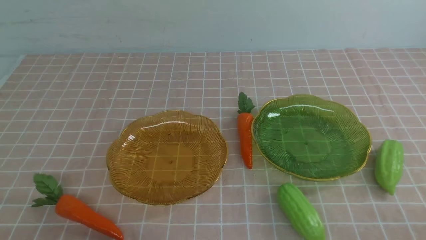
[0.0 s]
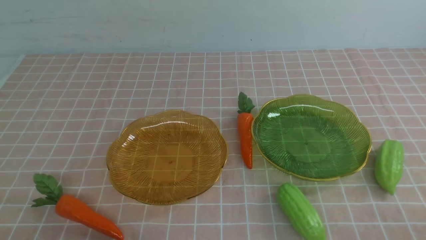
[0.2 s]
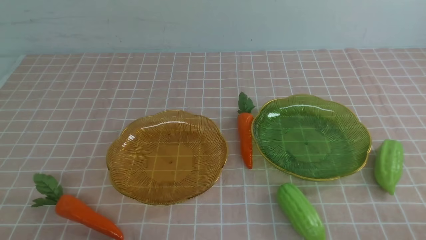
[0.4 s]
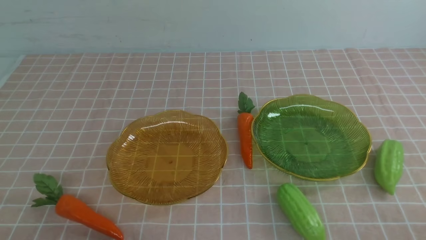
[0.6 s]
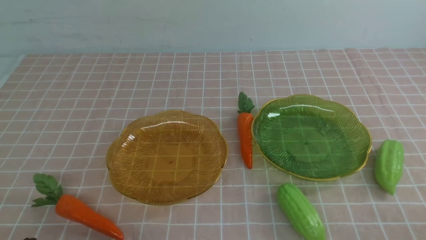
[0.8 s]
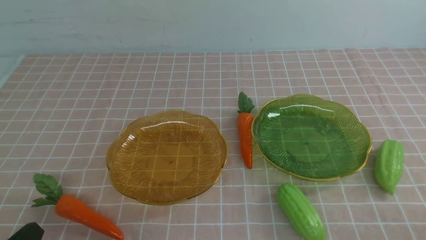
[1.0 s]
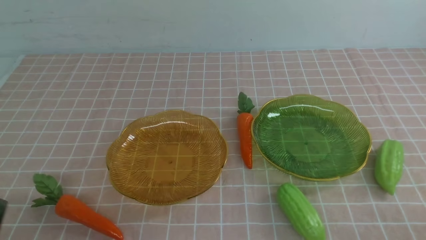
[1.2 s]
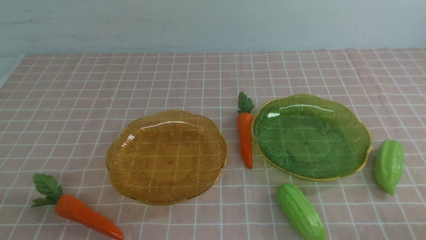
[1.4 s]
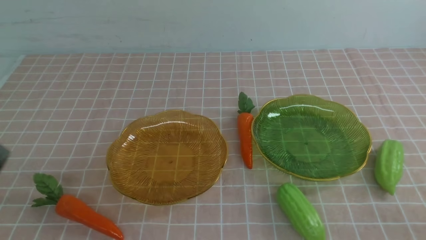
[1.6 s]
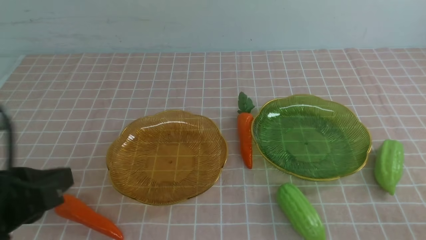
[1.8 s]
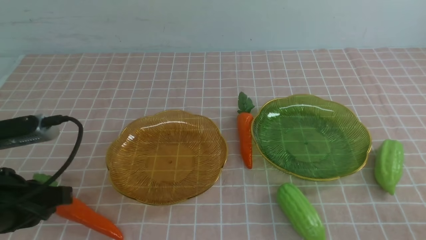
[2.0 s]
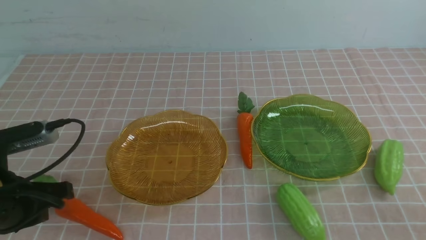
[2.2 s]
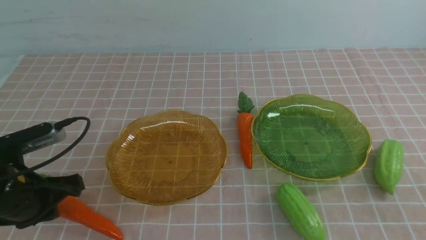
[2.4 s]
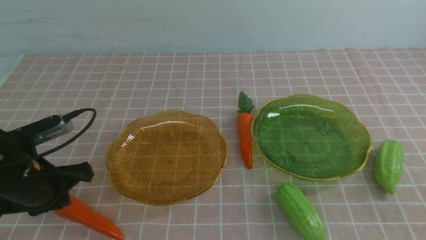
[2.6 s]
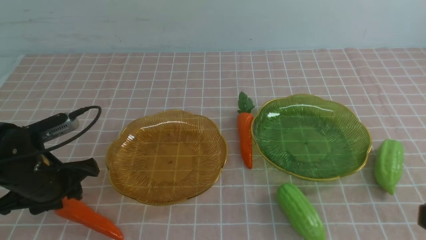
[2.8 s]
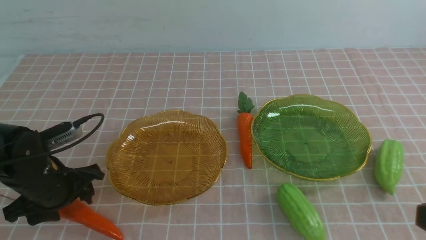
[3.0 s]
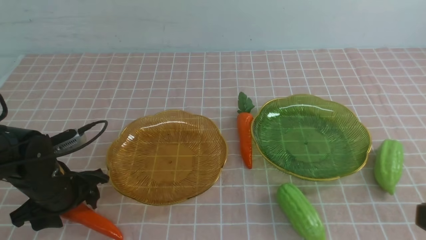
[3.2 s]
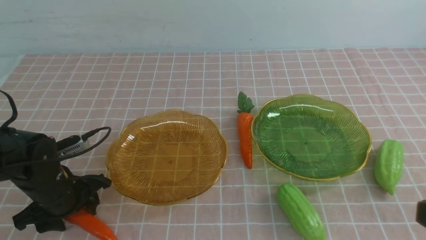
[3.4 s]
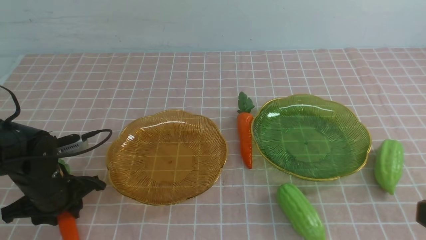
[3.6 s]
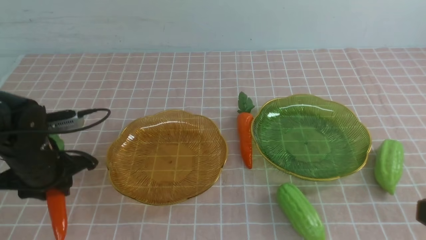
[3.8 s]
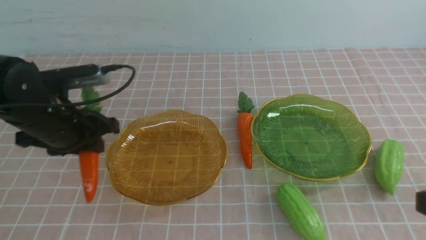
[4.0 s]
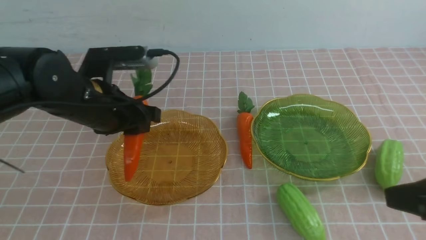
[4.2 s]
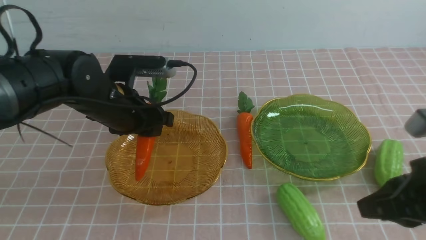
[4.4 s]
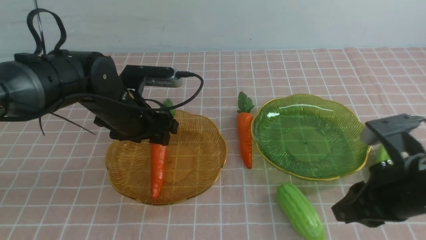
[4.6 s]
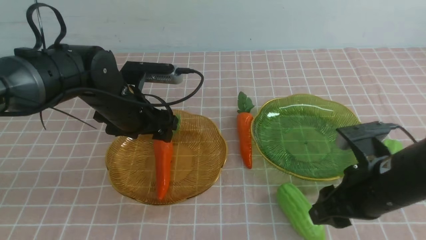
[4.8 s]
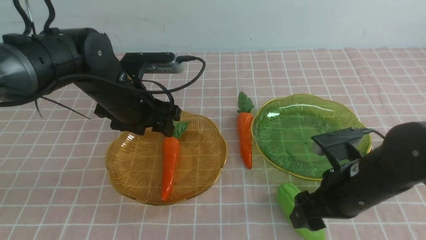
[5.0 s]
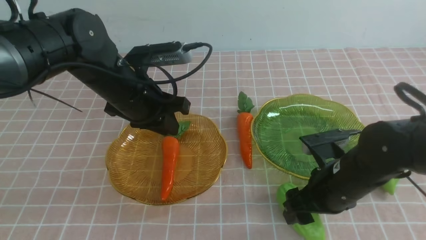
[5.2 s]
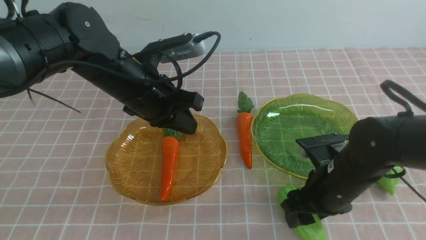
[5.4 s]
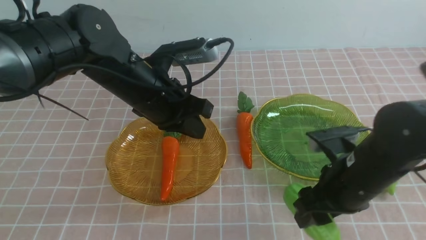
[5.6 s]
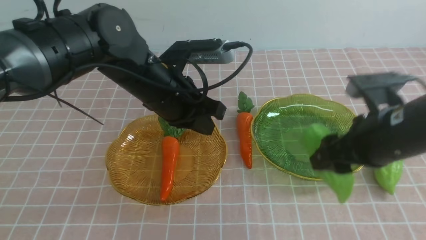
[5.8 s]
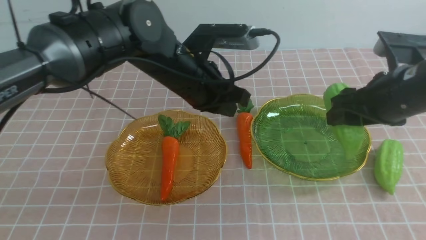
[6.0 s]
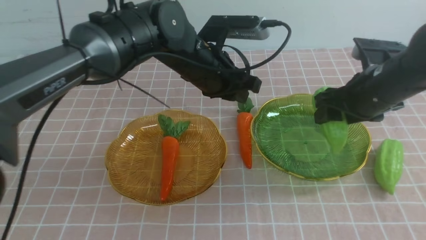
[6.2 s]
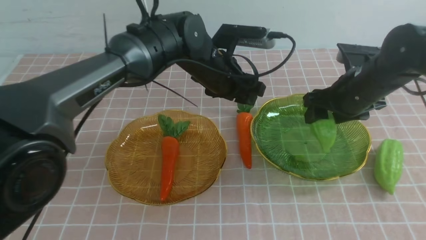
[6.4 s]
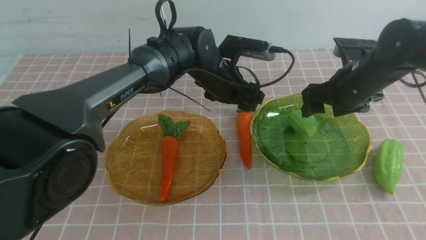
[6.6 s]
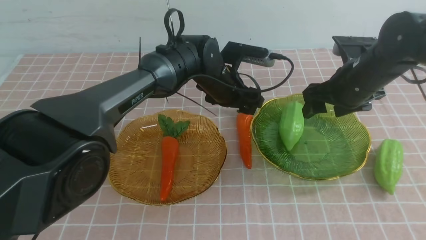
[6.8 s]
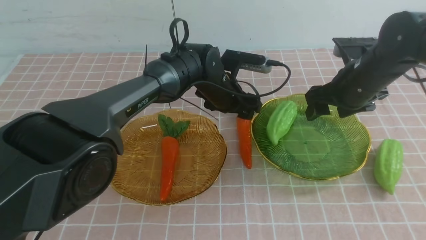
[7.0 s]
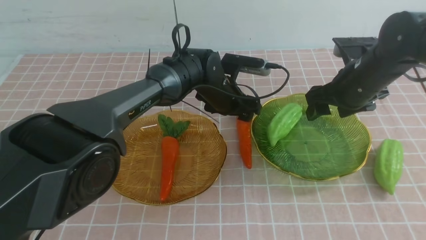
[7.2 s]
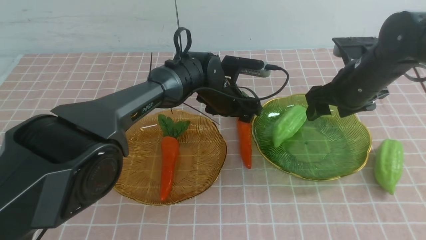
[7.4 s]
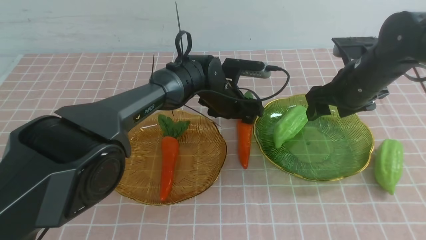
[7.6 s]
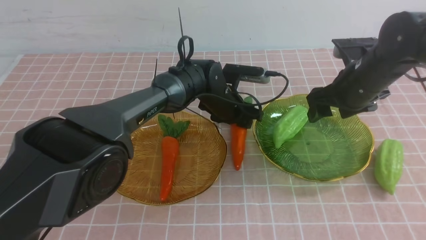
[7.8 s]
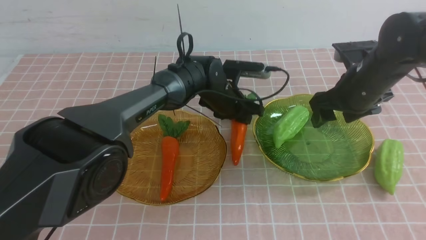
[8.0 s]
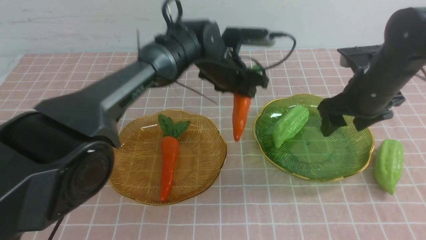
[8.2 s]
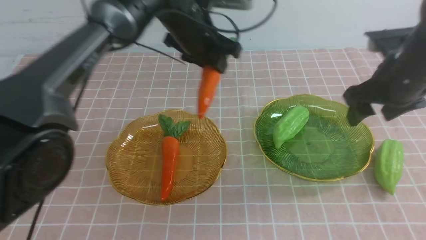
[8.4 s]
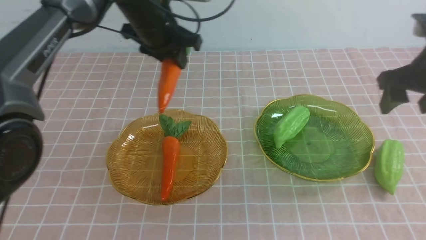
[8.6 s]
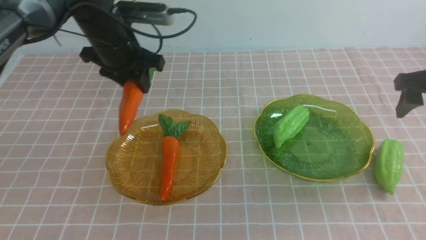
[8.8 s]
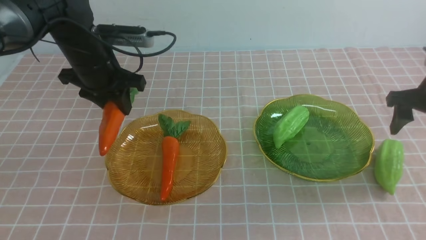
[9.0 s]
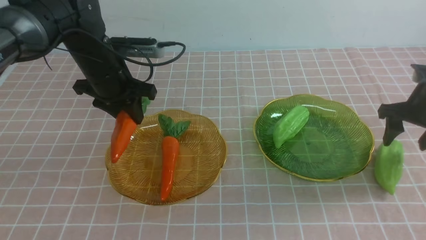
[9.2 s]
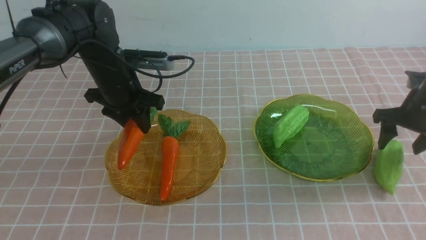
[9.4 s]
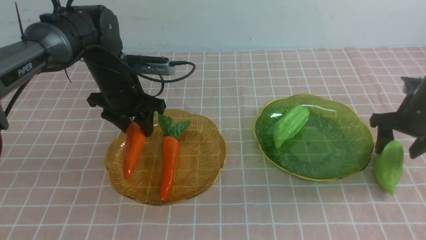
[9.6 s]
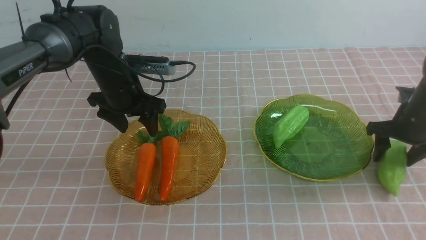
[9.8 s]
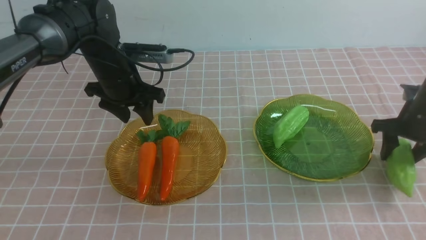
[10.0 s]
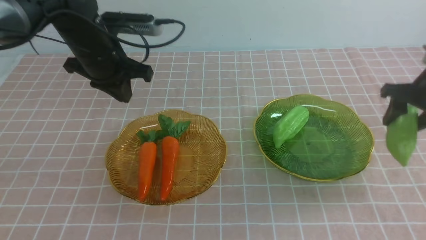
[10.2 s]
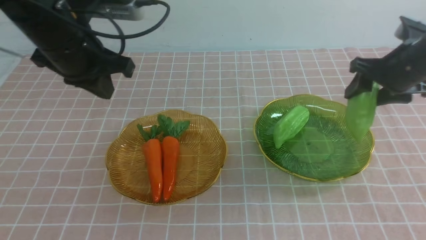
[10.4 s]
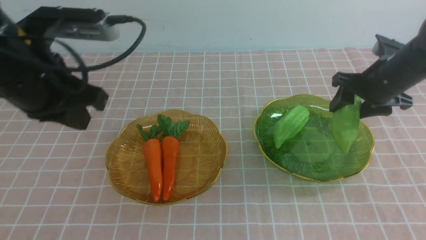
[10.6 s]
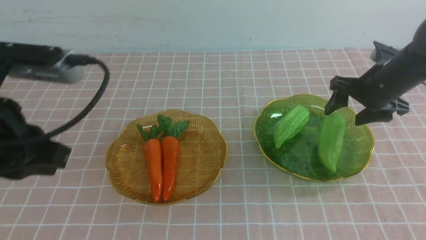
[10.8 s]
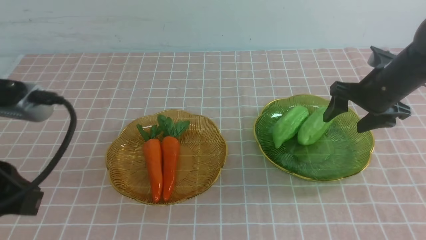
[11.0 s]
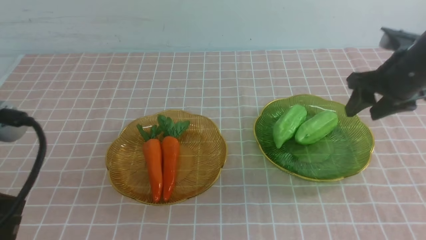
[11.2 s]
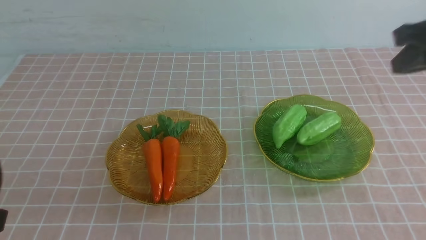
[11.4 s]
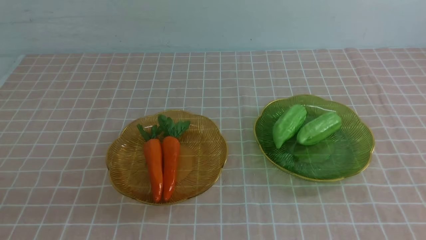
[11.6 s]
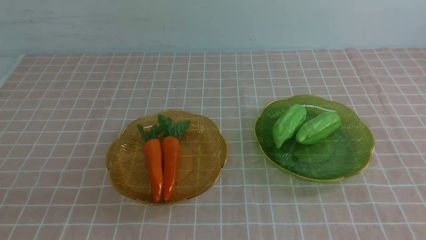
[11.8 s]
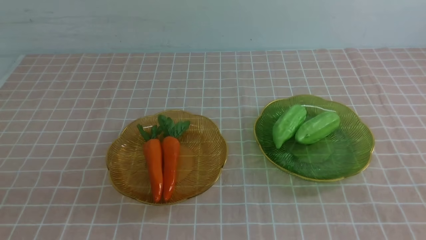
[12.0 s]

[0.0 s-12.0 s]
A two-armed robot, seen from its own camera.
Step, 0.0 to 4.6 s: use the left arm to grab a carrot and put it into the left plate.
Step, 4.8 to 6.6 s: use the right arm to grab a chayote and put it into the right plate.
Step, 7.0 to 9.6 s: use the left arm to grab a carrot and put it into the left plate.
Step, 9.8 to 10.8 s: use the right arm to grab a chayote and put it into the right plate.
1.6 to 3.0 s: The left gripper is displaced forward and downward by about 25 cm, and opens.
3.0 to 4.4 s: The right gripper heads forward, covering roughly 10 cm. Meanwhile the left gripper travels upward, to the right and forward by approximately 15 cm, and closes its fingers.
4.4 to 6.0 s: The left gripper goes some 10 cm to the right, and closes its fingers. Meanwhile the right gripper heads forward, covering approximately 15 cm, and opens up.
6.0 to 7.6 s: The left gripper travels downward and forward by about 15 cm, and opens its fingers, while the right gripper goes some 5 cm forward.
7.6 to 9.0 s: The left gripper is displaced to the left and upward by about 20 cm, and closes its fingers; the right gripper heads to the right, covering roughly 10 cm.
9.0 to 10.4 s: The left gripper shifts approximately 15 cm backward and upward, and closes its fingers; the right gripper goes about 5 cm to the left, and reaches roughly 10 cm downward, then returns.
10.4 to 12.0 s: The right gripper shifts about 40 cm backward, and closes. The left gripper goes approximately 25 cm backward.

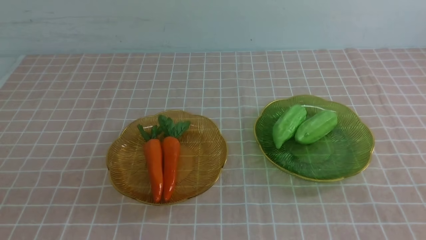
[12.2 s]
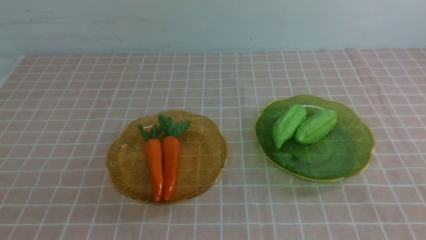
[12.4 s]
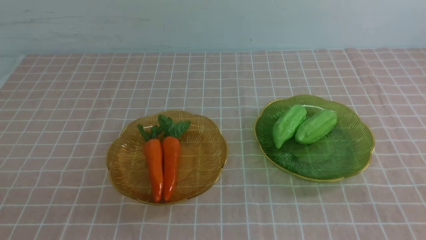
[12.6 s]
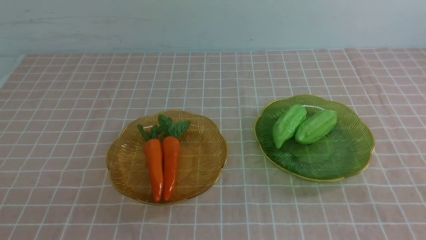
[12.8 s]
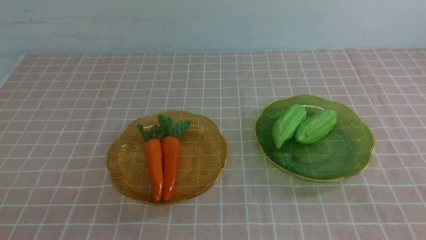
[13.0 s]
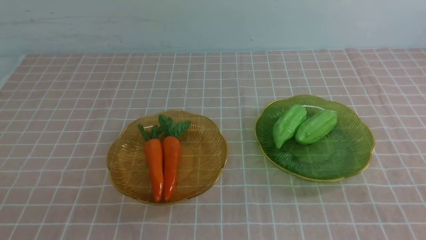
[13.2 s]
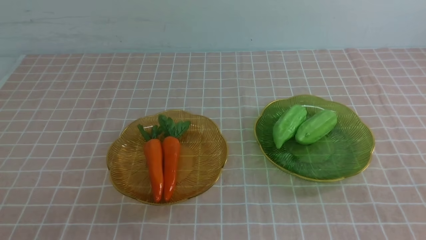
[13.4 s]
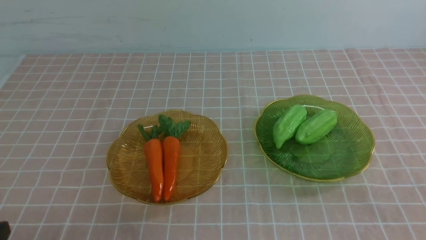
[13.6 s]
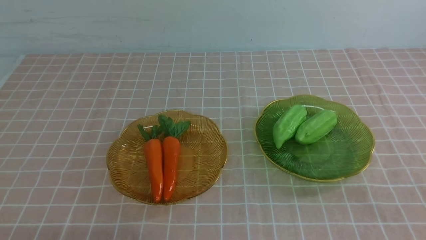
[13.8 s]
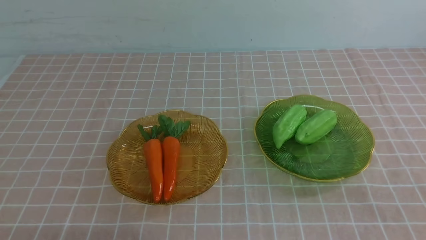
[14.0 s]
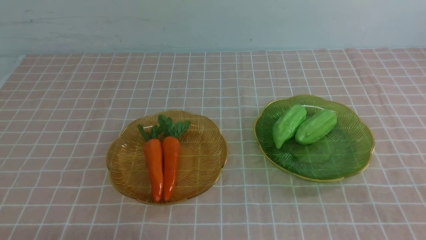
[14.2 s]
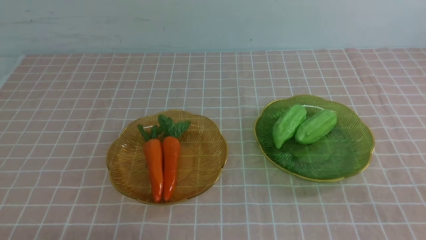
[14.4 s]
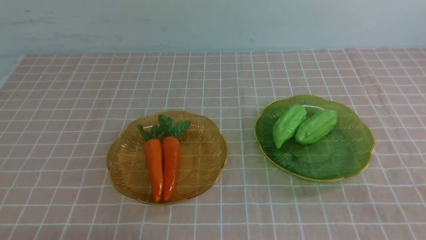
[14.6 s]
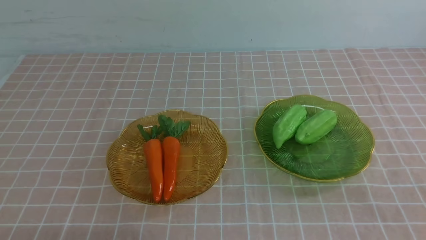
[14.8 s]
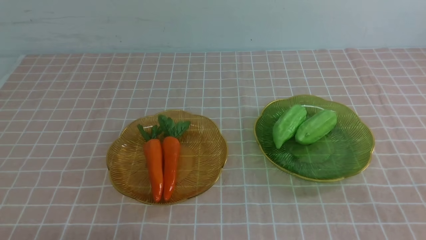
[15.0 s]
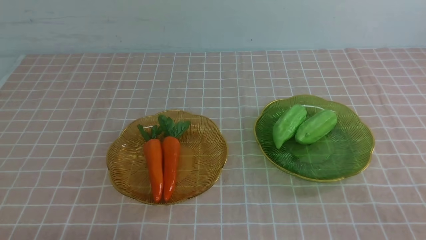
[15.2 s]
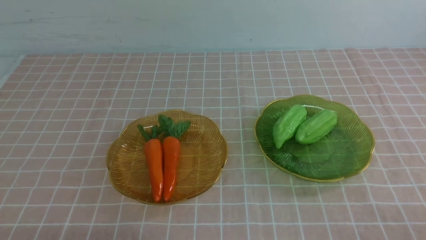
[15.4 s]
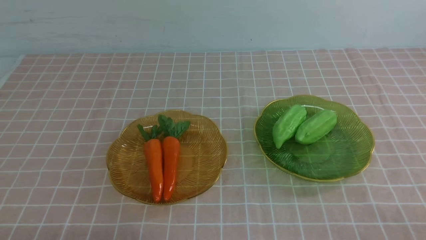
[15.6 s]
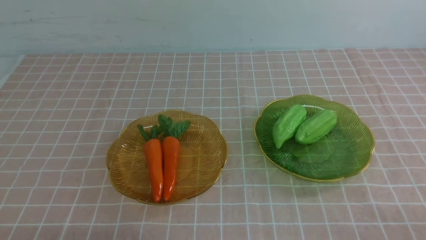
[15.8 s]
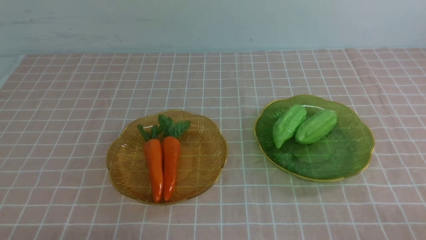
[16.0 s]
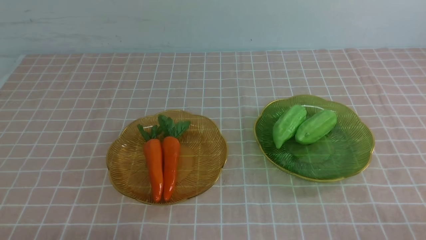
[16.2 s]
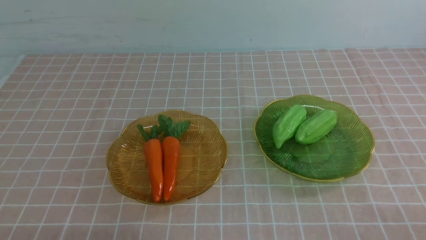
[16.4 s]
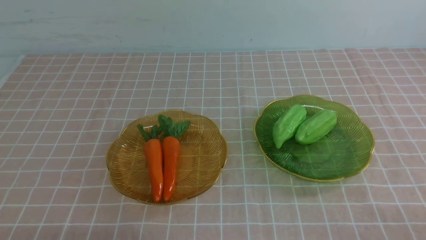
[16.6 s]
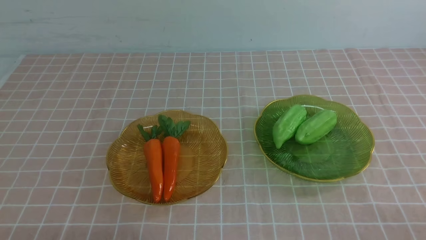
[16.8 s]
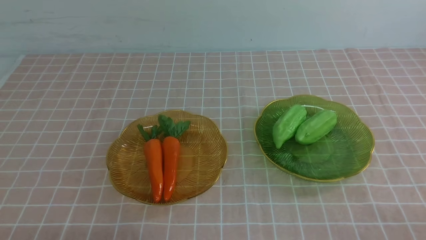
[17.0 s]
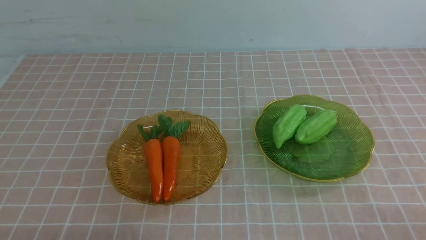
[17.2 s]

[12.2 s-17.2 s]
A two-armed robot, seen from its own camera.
15.6 to 17.2 s: Neither gripper changes place.
